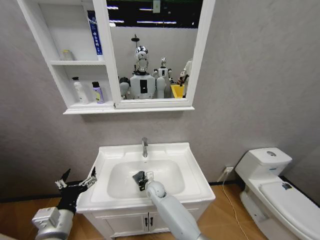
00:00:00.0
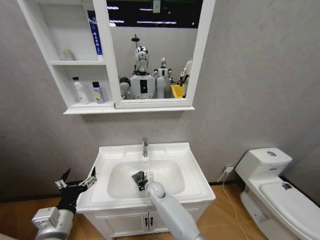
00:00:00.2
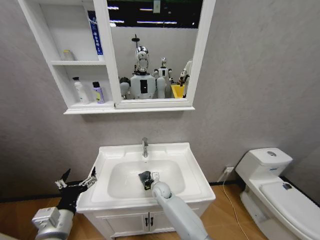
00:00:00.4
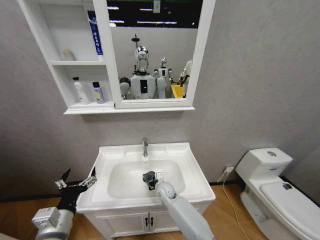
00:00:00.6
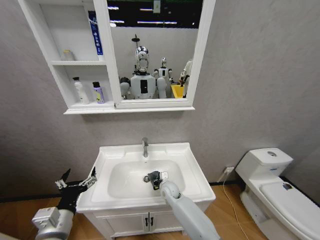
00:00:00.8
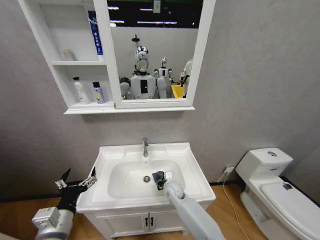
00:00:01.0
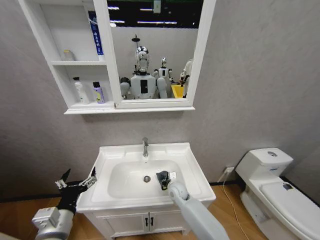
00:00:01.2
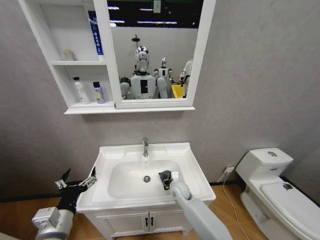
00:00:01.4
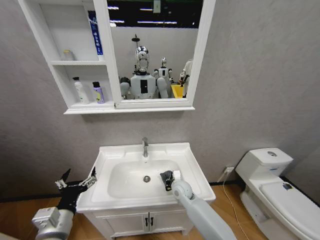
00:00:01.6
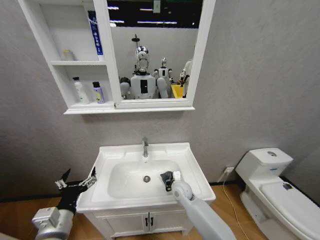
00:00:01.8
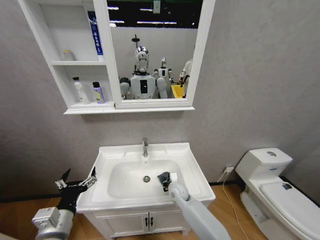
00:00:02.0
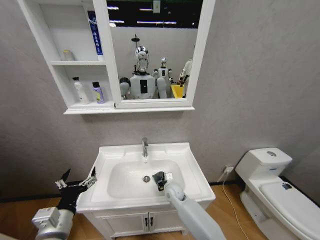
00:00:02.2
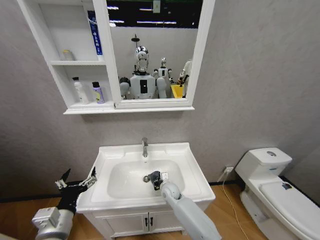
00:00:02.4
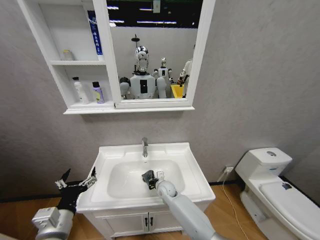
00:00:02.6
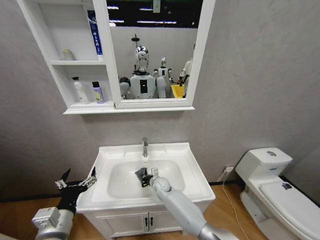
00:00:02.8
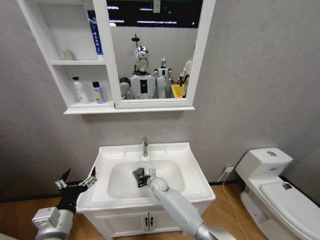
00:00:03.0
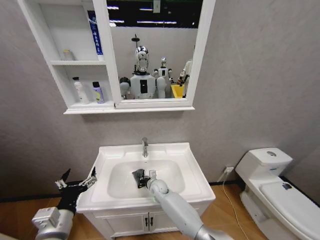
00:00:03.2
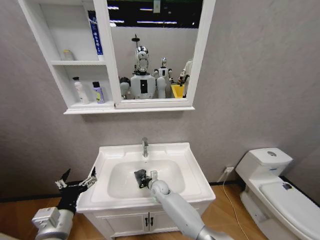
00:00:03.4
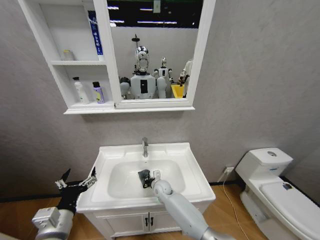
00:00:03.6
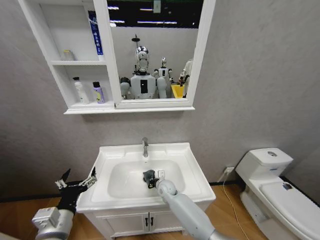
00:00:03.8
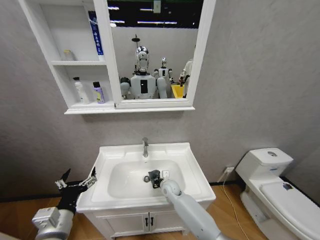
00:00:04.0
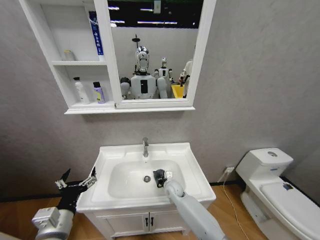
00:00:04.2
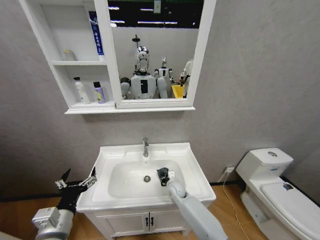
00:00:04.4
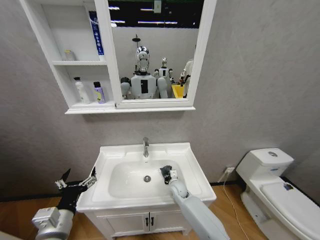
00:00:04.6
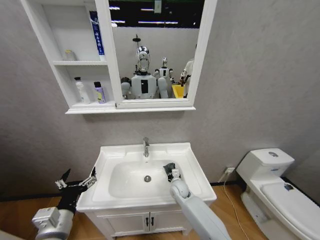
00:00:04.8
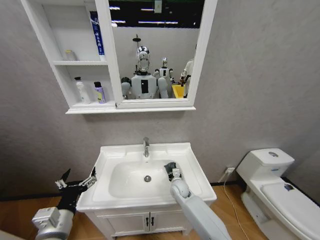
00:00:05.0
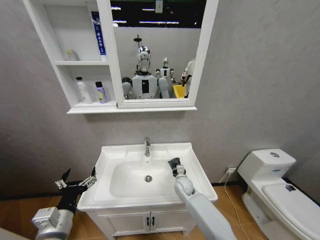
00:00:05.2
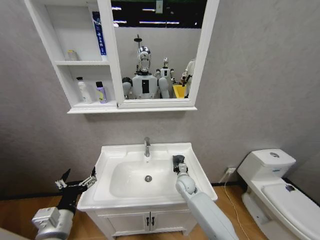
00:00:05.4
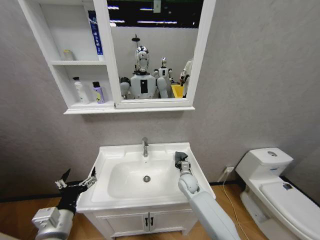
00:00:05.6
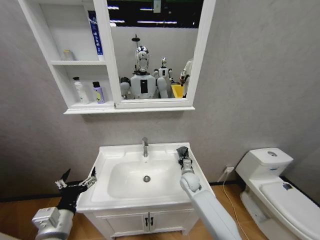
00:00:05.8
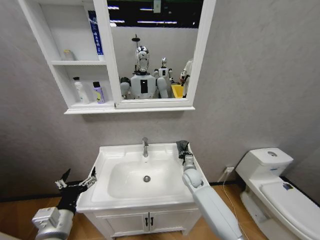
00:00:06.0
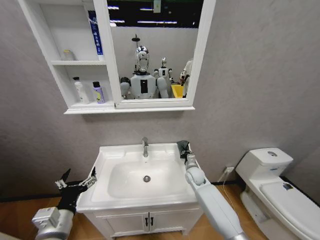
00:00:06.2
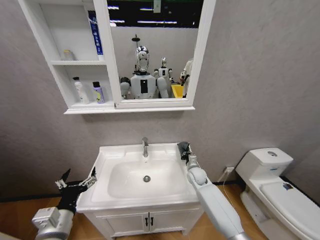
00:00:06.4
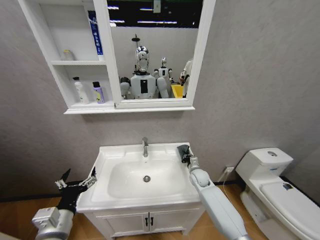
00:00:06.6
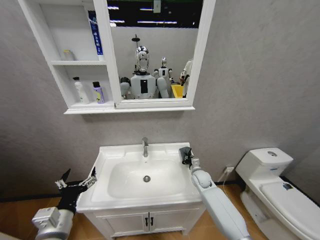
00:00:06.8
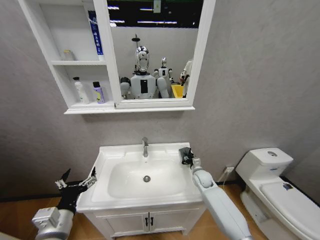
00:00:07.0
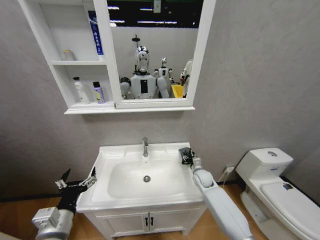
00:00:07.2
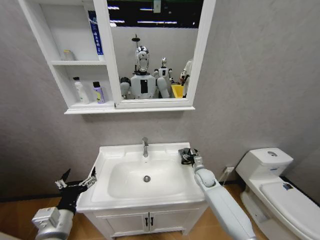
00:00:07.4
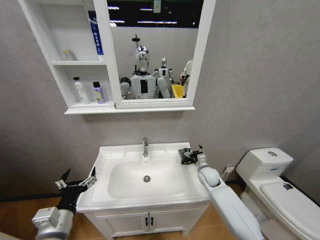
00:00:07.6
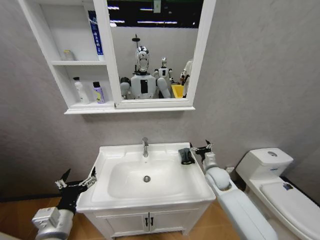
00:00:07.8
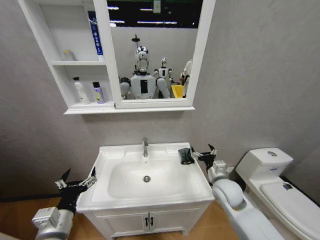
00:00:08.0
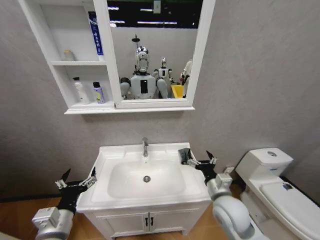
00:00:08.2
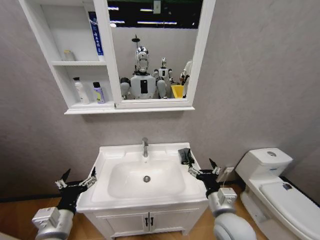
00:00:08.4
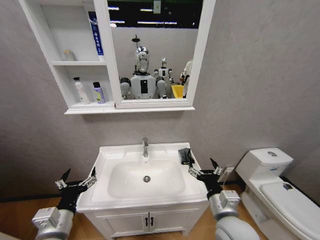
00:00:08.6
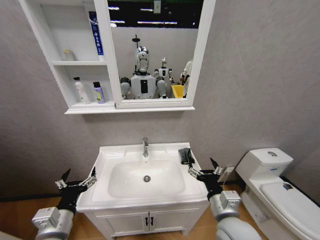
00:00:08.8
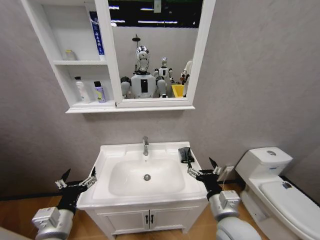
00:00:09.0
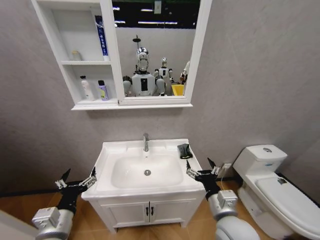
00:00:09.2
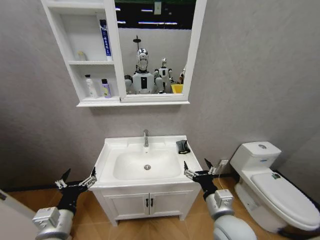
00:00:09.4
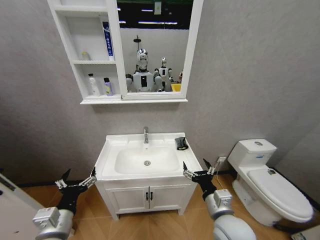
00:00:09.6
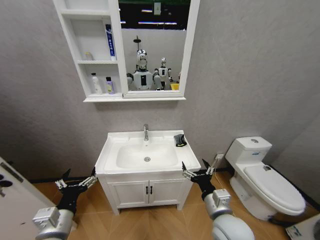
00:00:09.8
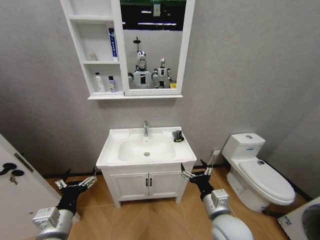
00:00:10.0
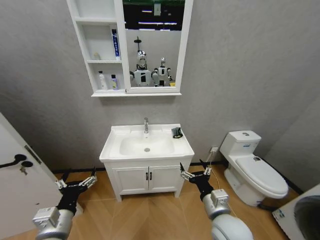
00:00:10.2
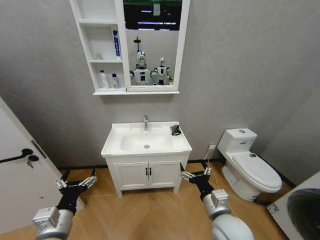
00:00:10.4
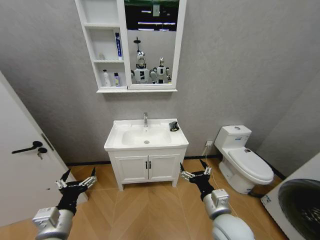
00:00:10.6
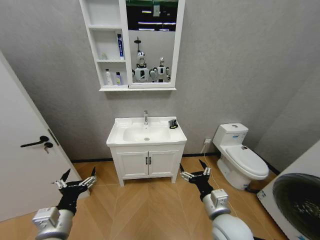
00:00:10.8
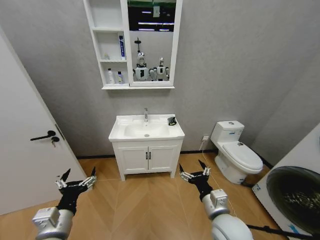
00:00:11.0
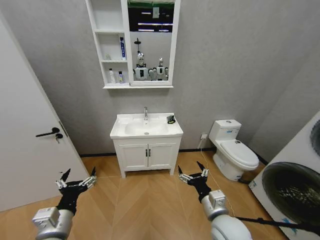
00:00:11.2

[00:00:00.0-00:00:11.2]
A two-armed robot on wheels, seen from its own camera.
Task of the whole recording: Move facial cleanser and shampoo from washbasin to cabinet, then wipe washbasin with towel.
00:00:00.0 to 00:00:01.6: The right gripper shifts approximately 15 cm to the right.
00:00:01.6 to 00:00:03.2: The right gripper moves to the left and downward, approximately 15 cm.
00:00:03.2 to 00:00:04.8: The right gripper heads to the right, covering about 10 cm.
00:00:04.8 to 00:00:06.4: The right gripper is displaced to the right and forward by about 10 cm.
00:00:06.4 to 00:00:08.0: The right gripper is displaced backward and upward by approximately 15 cm, and opens up.
00:00:08.0 to 00:00:09.6: The right gripper is displaced backward and to the left by roughly 15 cm.

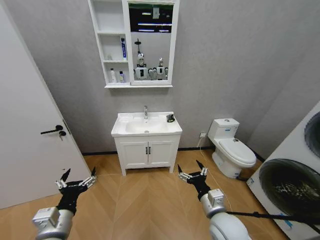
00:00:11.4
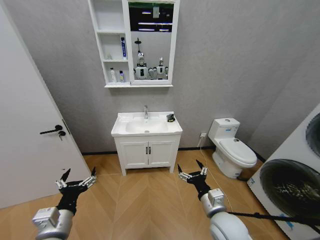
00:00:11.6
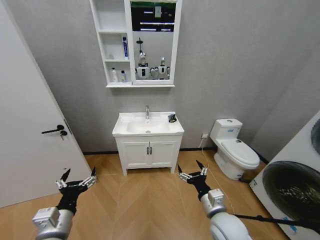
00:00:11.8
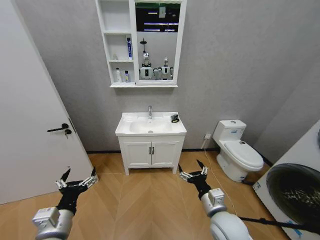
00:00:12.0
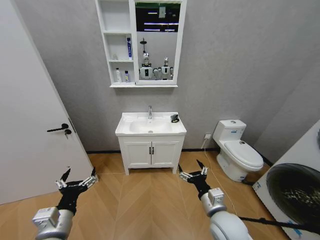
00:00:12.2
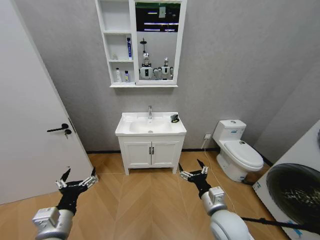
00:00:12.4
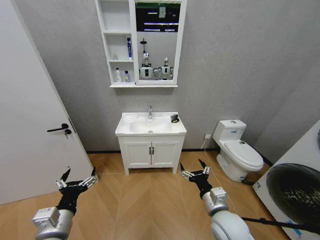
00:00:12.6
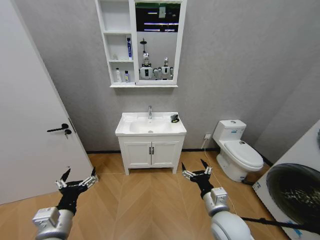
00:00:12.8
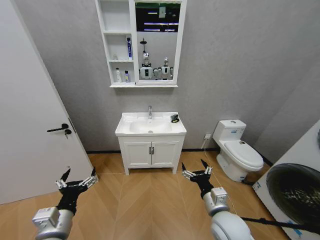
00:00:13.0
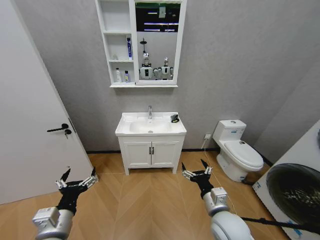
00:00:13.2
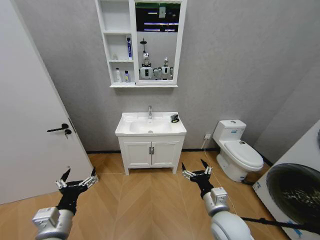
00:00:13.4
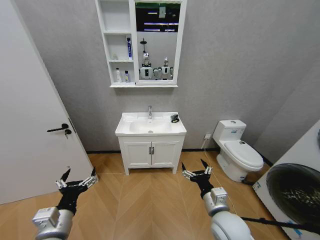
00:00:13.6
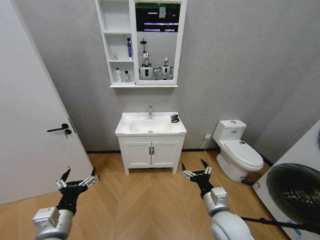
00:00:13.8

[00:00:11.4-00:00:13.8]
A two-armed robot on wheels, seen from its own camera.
Task of the whole recording: Move facial cleanser and shampoo from washbasin to cabinet, then wipe washbasin with towel.
00:00:11.4 to 00:00:13.8: Both grippers stay put.

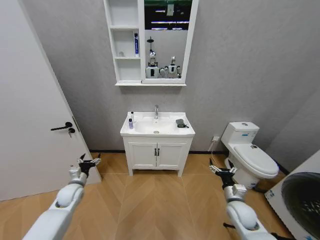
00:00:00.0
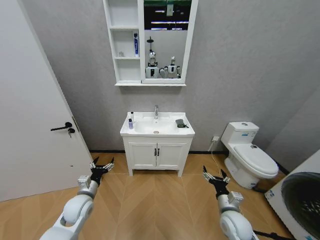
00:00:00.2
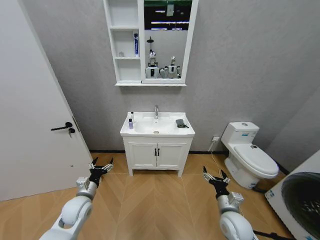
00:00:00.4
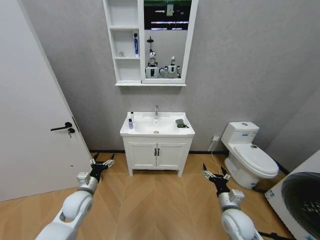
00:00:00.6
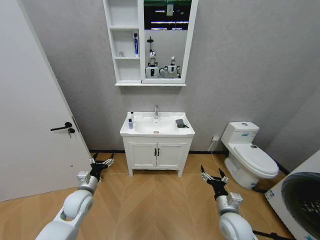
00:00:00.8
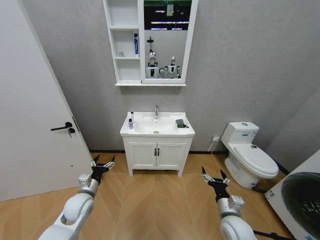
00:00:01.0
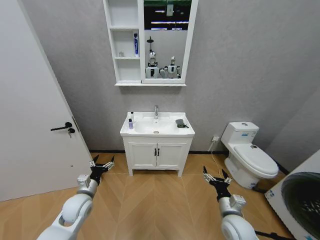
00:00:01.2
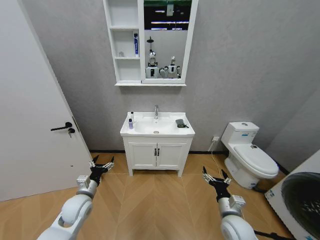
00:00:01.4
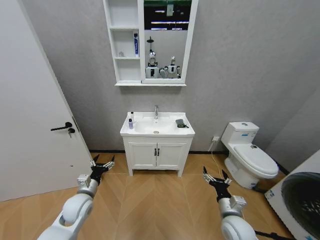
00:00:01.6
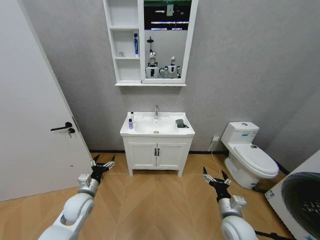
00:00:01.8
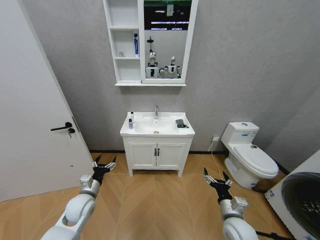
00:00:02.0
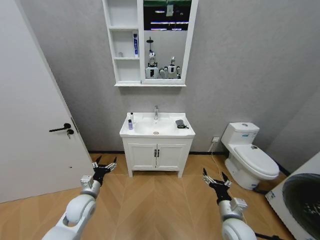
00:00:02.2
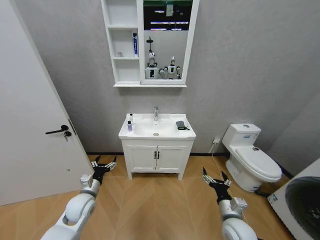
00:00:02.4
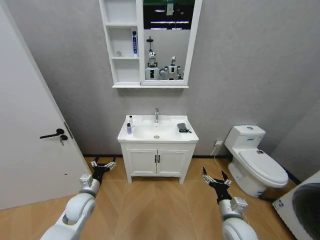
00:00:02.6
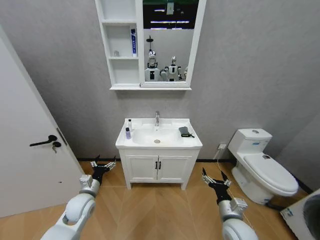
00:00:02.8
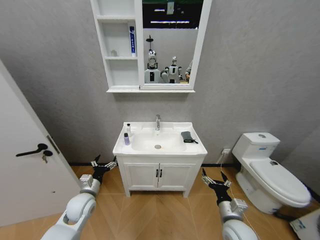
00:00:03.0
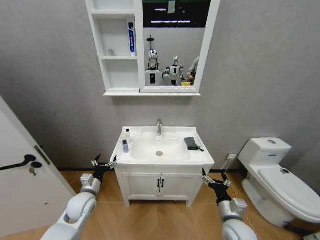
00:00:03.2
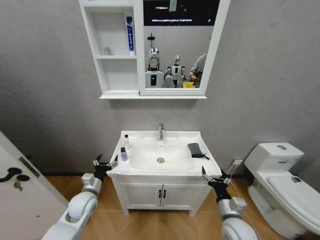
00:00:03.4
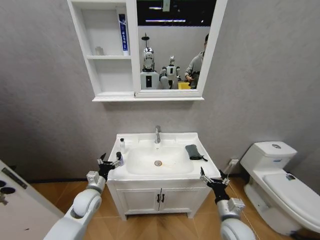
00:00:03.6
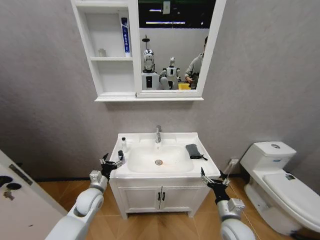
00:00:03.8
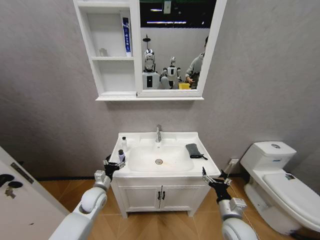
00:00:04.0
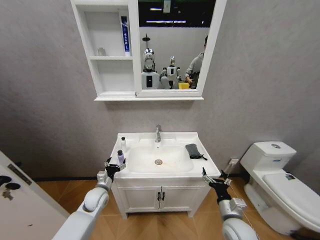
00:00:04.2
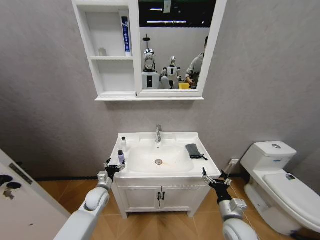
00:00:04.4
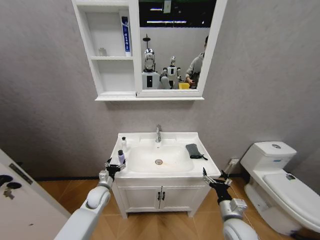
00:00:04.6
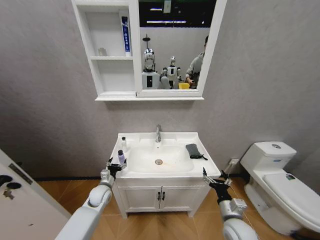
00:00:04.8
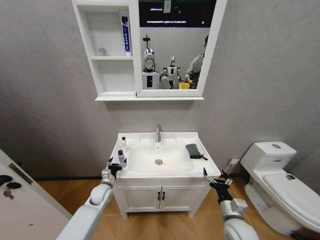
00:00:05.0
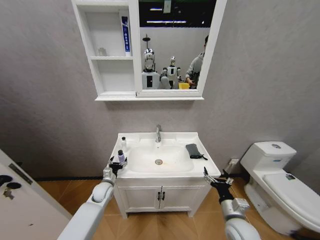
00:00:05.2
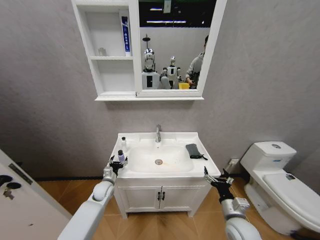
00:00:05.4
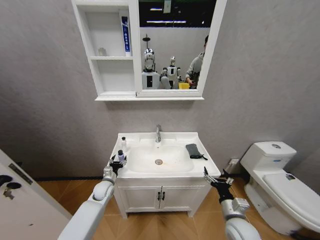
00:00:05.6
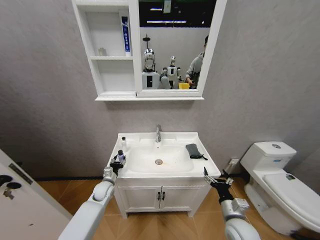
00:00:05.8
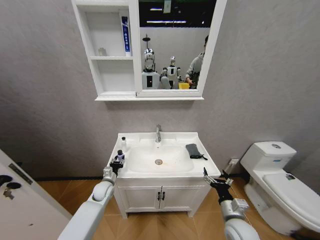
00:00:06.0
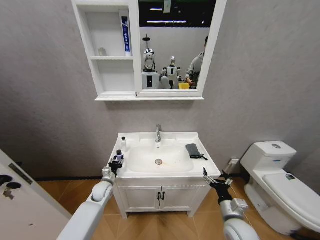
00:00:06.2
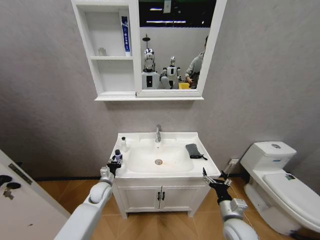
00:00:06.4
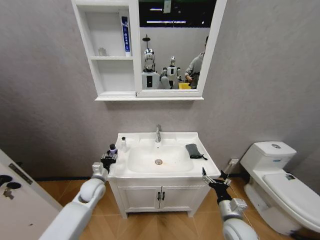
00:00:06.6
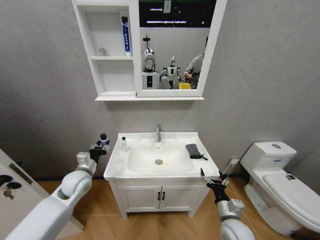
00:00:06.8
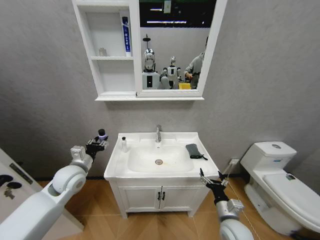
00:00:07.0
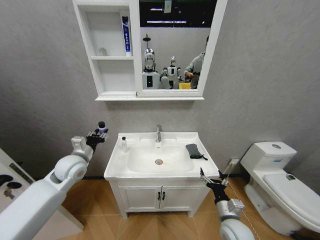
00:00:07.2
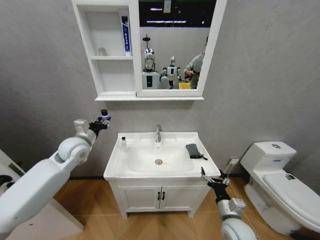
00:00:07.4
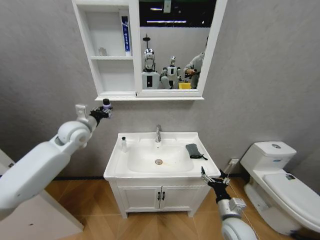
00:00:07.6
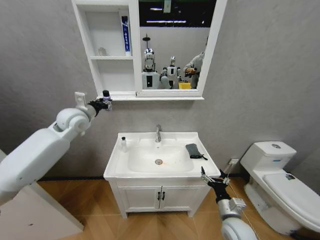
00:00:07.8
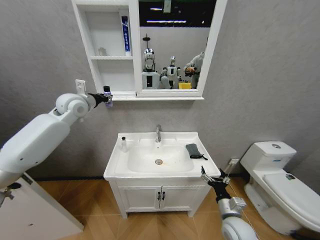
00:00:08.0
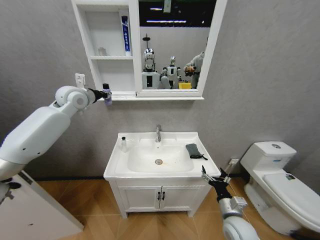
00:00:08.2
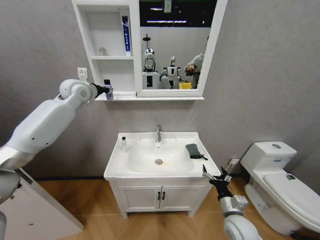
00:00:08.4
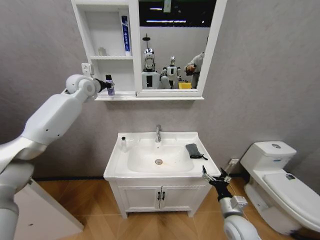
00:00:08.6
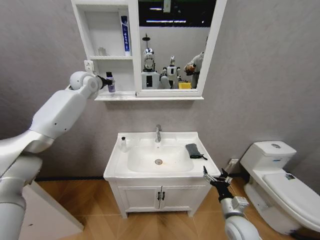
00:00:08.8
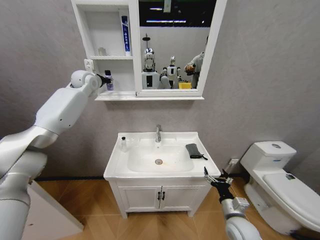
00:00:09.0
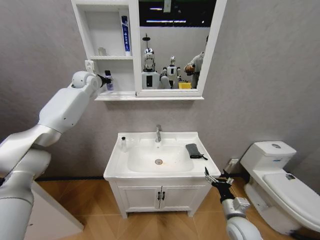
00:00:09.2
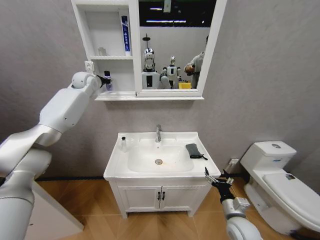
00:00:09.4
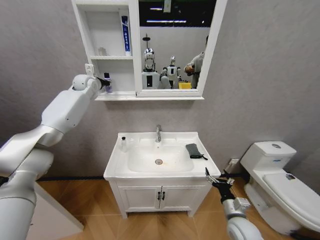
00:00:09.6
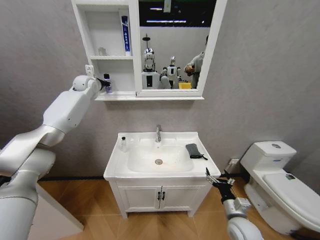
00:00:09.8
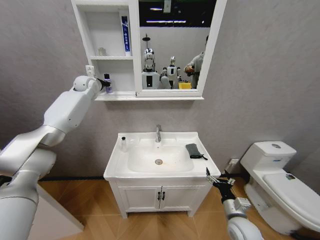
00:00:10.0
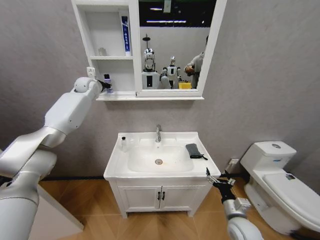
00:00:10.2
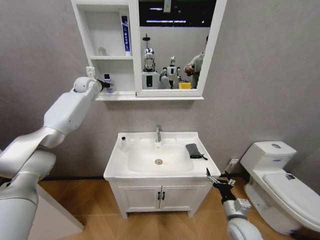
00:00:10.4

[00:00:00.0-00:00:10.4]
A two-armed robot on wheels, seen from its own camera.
Task of the whole recording: Move facial cleanser and shampoo from washbasin to cabinet, then wipe washbasin with towel.
00:00:03.0 to 00:00:04.4: The left gripper is displaced downward and forward by about 10 cm.
00:00:04.4 to 00:00:06.0: The left gripper closes.
00:00:06.0 to 00:00:07.4: The left gripper shifts about 30 cm upward.
00:00:07.4 to 00:00:09.0: The left gripper travels forward and upward by about 30 cm.
00:00:09.0 to 00:00:10.4: The left gripper opens its fingers.
